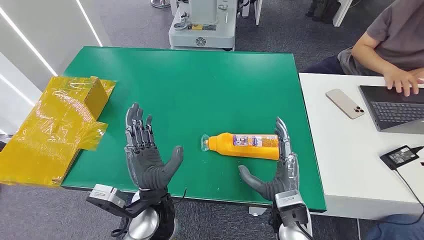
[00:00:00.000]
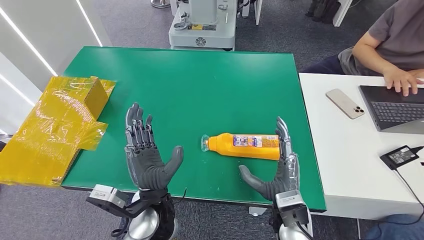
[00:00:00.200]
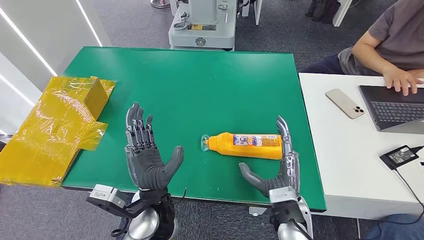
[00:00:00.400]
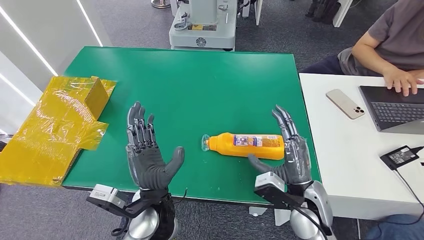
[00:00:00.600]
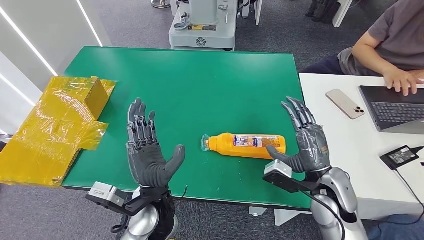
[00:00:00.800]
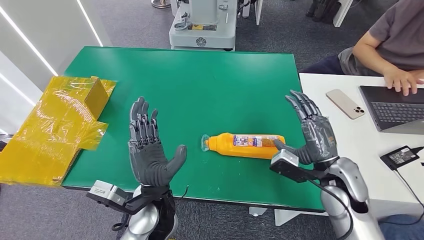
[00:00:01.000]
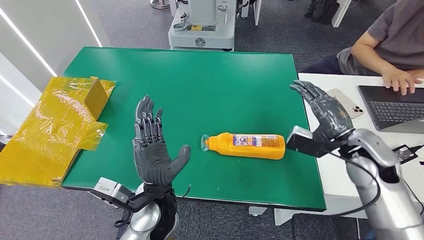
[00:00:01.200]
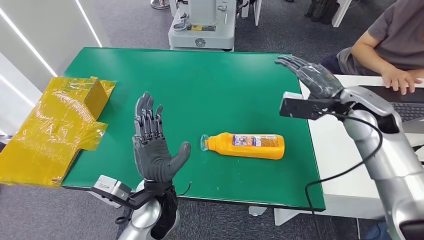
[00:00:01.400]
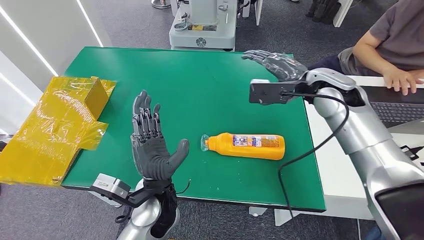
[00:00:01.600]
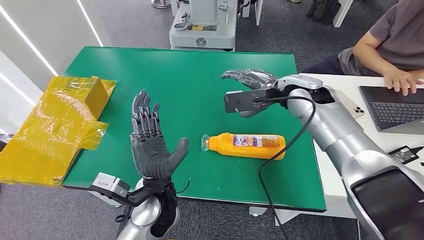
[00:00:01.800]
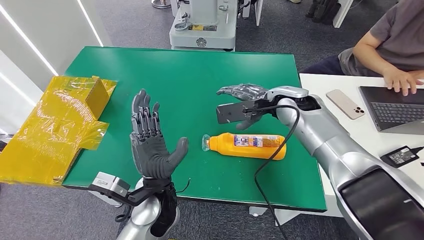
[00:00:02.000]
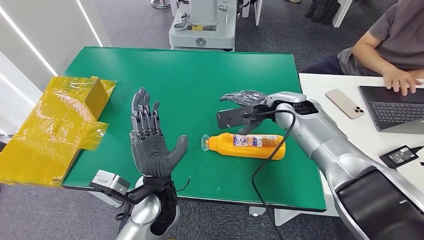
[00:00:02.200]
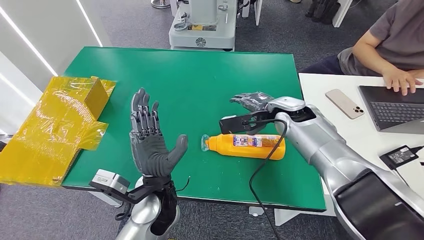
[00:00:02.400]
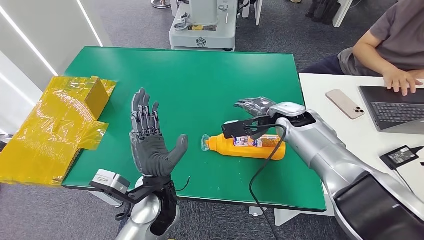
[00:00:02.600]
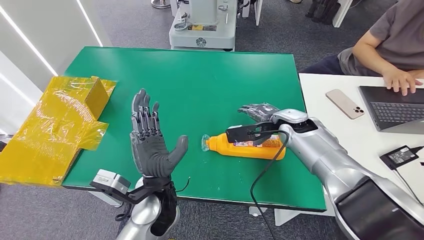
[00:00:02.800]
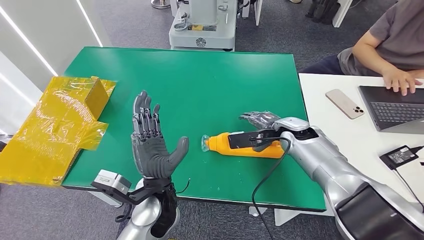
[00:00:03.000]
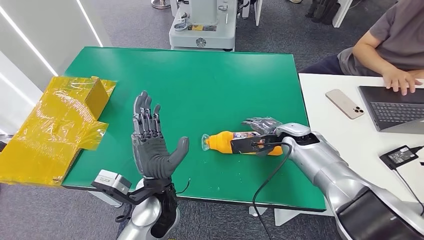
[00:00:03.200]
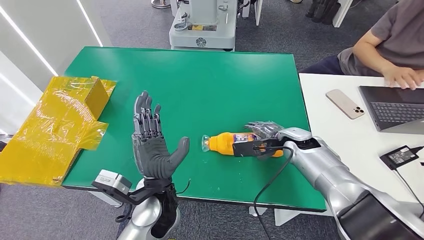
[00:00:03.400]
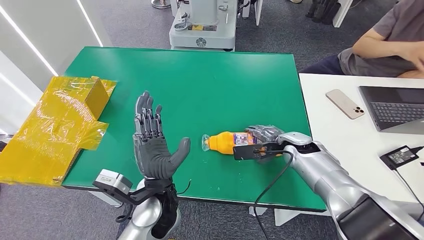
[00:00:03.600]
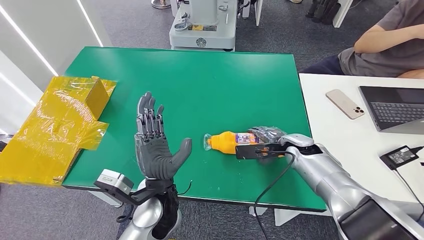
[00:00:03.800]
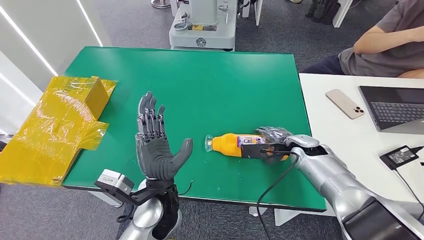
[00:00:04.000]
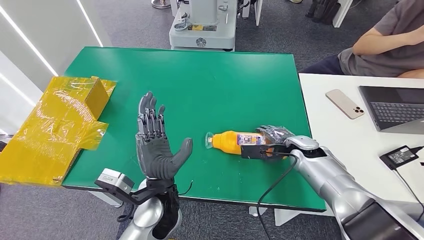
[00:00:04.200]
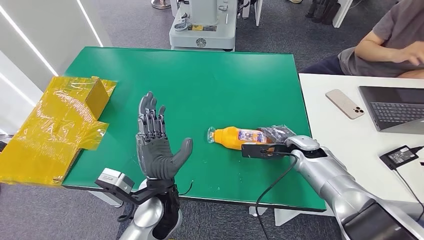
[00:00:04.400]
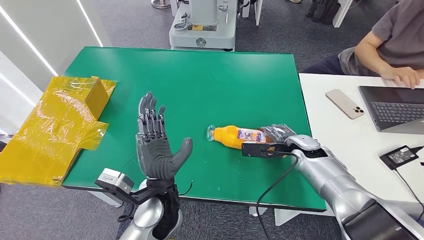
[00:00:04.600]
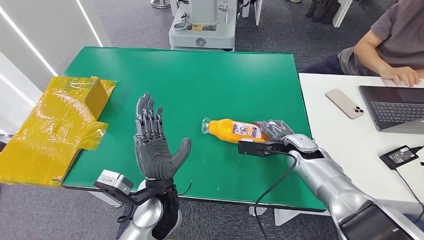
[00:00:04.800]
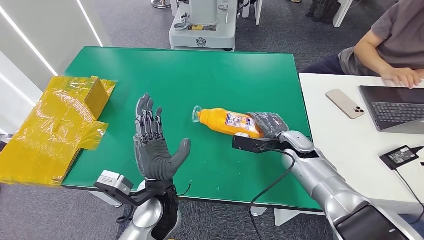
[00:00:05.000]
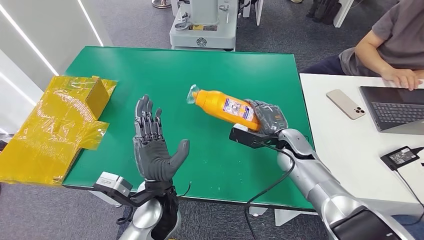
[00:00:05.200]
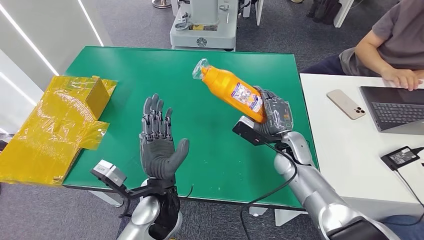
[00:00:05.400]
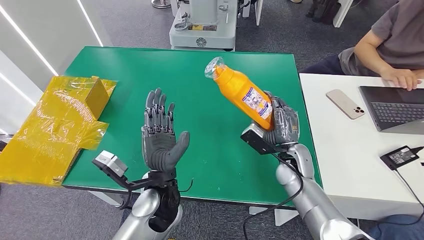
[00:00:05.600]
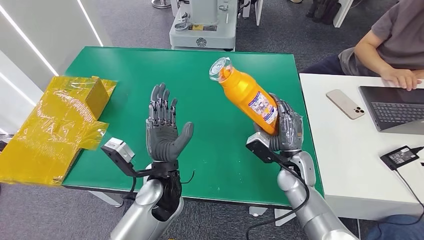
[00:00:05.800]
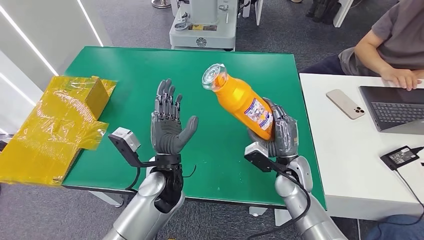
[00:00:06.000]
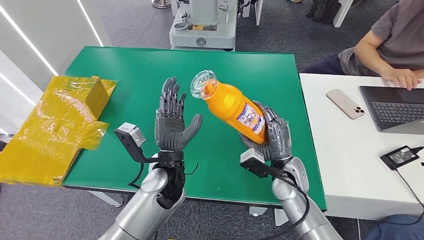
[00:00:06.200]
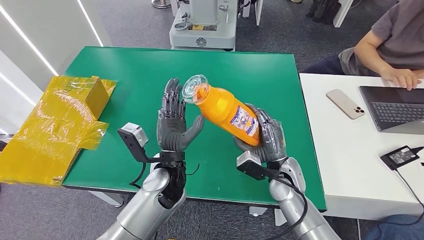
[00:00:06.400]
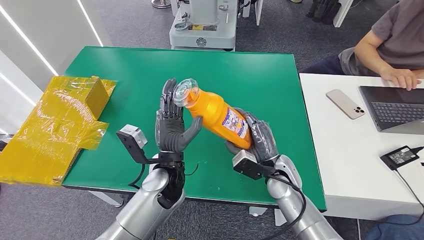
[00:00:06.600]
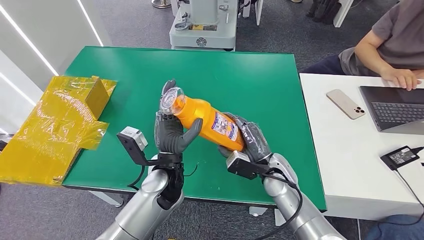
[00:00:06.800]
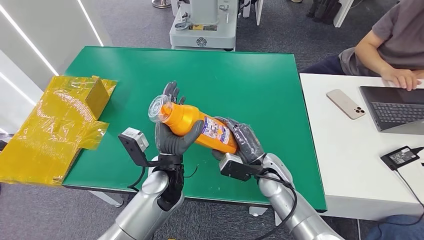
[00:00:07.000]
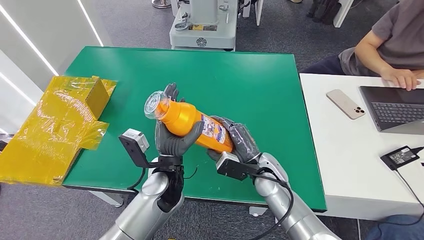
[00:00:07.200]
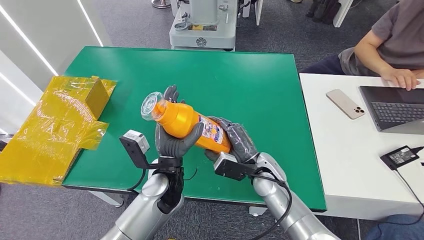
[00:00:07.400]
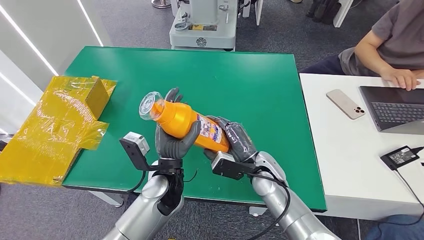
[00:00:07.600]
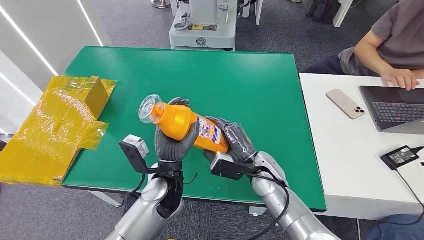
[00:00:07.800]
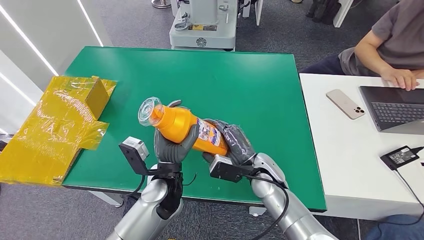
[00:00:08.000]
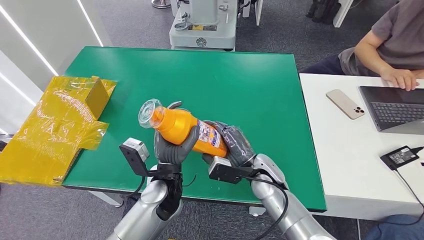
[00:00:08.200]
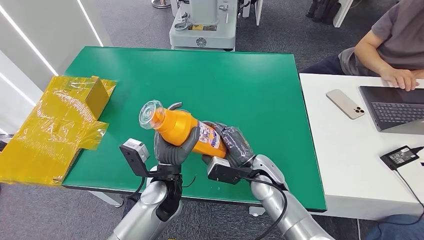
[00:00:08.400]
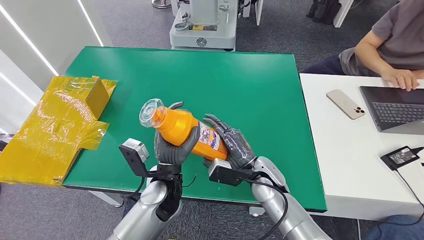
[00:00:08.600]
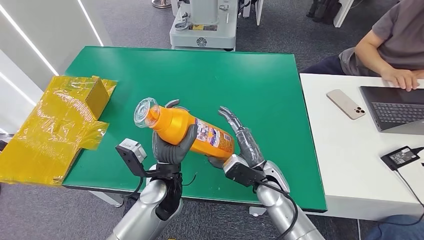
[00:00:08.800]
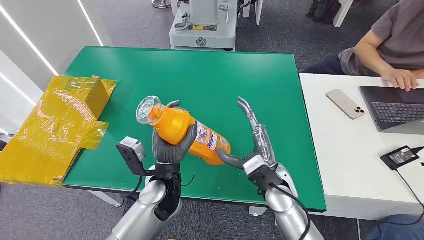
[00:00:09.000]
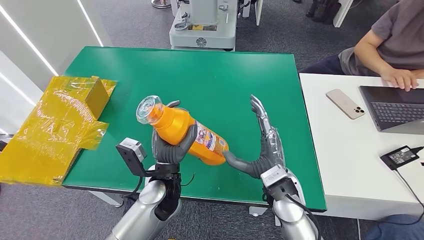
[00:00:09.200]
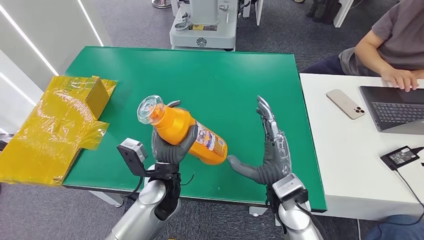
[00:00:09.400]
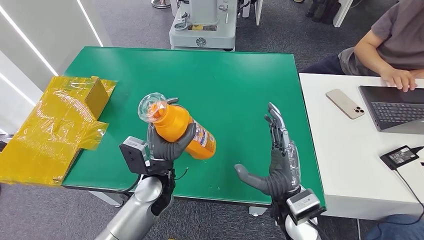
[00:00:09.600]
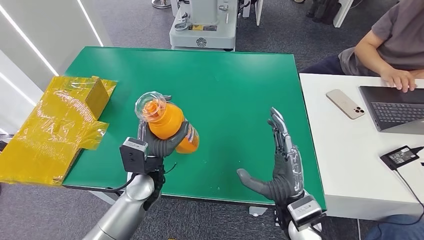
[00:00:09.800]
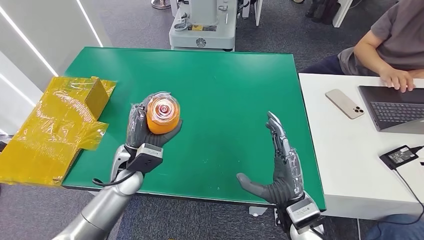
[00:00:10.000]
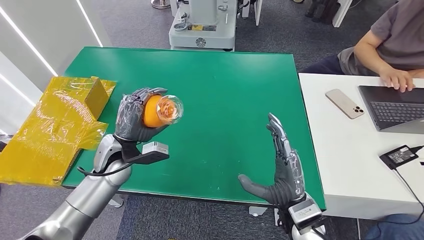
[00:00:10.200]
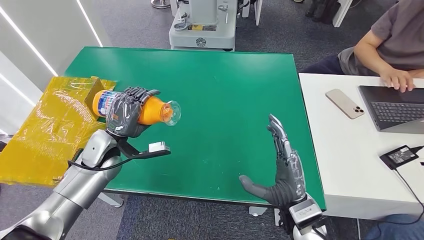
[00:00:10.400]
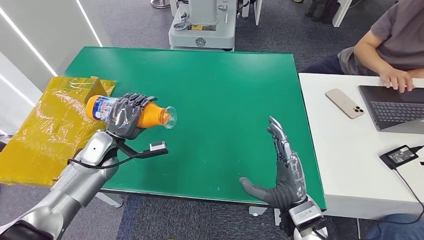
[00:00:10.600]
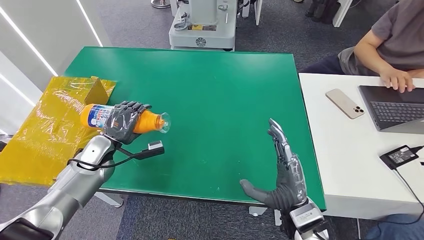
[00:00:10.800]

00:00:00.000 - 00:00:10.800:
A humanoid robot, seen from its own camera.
Step, 00:00:00.000 - 00:00:06.600: Pick up the bottle from the table.
00:00:01.600 - 00:00:03.000: The right hand shifts roughly 15 cm downward.
00:00:03.000 - 00:00:04.600: The right hand is displaced downward by roughly 5 cm.
00:00:04.600 - 00:00:06.200: The left hand goes roughly 5 cm forward. The right hand travels to the left and backward by approximately 15 cm.
00:00:06.200 - 00:00:07.800: The right hand shifts some 5 cm to the left.
00:00:07.800 - 00:00:09.200: The right hand is displaced backward by some 5 cm.
00:00:09.200 - 00:00:10.800: The left hand shifts about 25 cm to the left, while the right hand heads backward, covering about 5 cm.

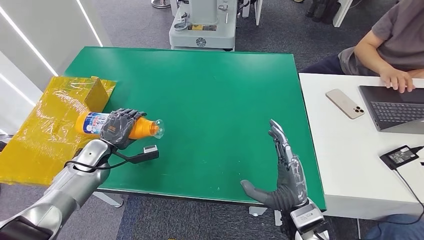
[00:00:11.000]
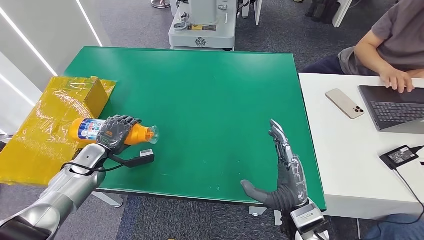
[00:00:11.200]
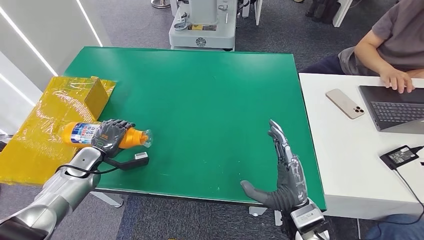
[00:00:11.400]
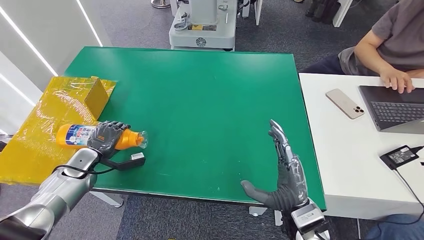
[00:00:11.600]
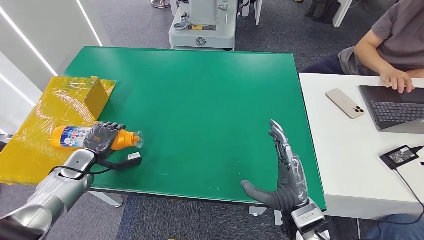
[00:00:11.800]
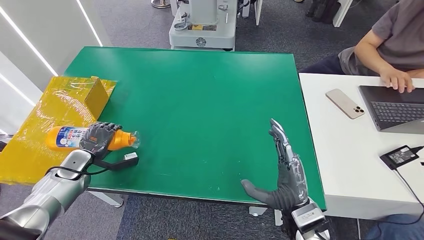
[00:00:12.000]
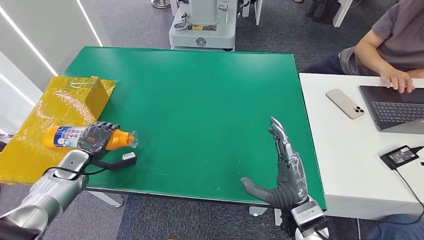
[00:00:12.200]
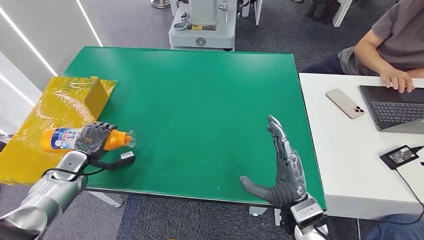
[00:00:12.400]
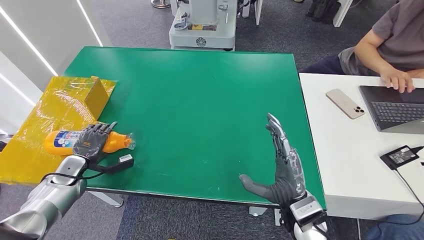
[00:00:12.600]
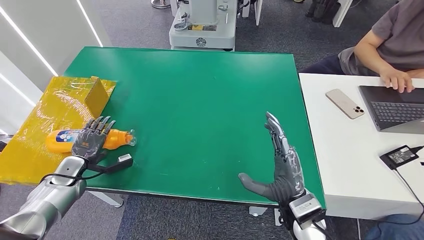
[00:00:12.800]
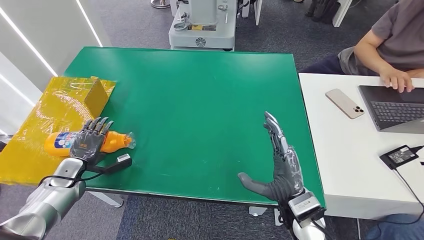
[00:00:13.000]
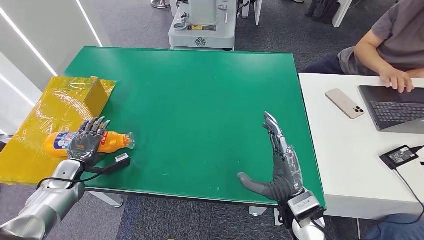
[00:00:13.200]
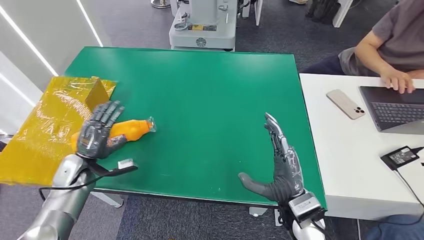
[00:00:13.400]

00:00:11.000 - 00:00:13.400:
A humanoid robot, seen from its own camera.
Step, 00:00:11.000 - 00:00:13.200: Turn the bottle to the front side.
00:00:11.000 - 00:00:12.200: The left hand goes approximately 5 cm to the left.
